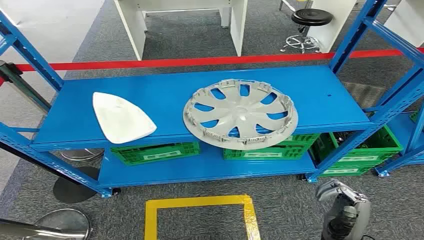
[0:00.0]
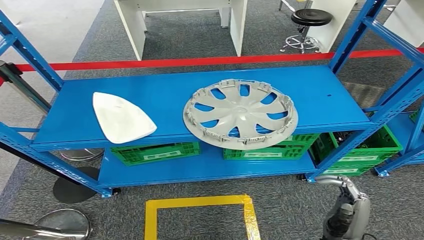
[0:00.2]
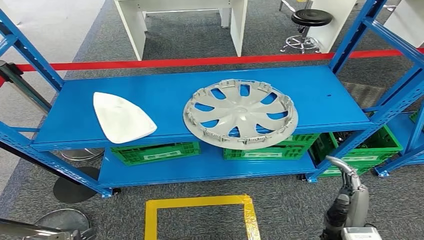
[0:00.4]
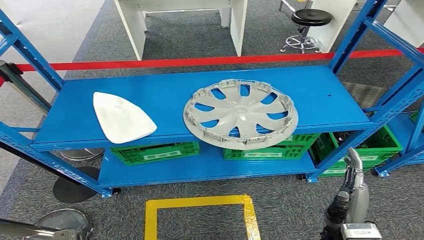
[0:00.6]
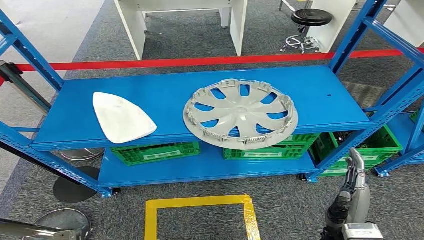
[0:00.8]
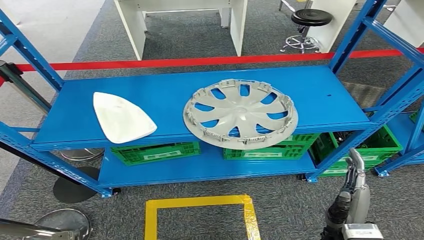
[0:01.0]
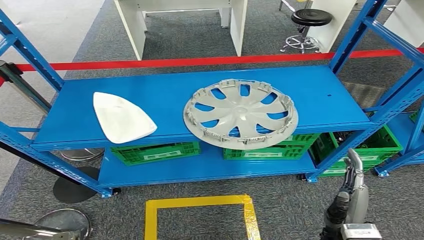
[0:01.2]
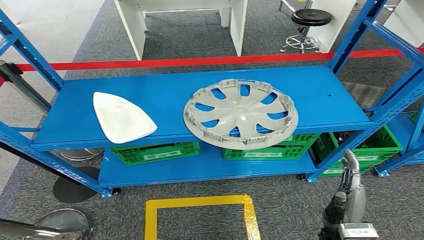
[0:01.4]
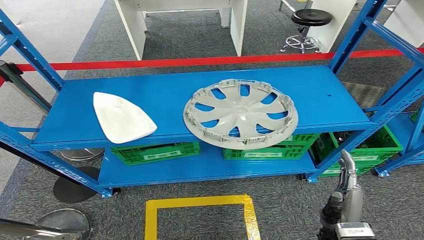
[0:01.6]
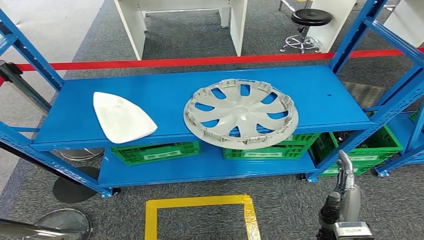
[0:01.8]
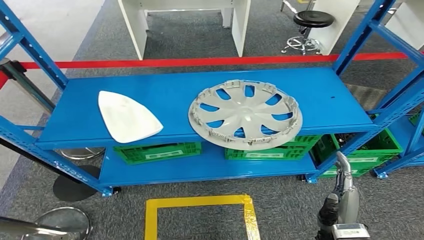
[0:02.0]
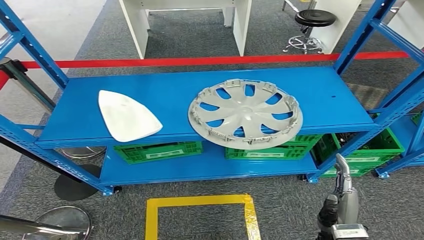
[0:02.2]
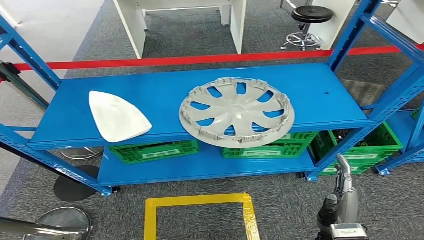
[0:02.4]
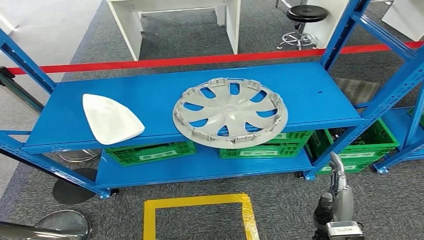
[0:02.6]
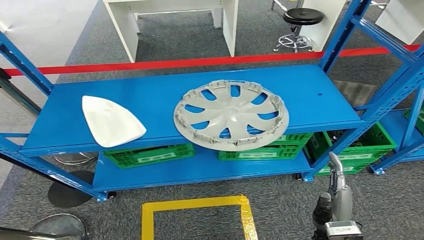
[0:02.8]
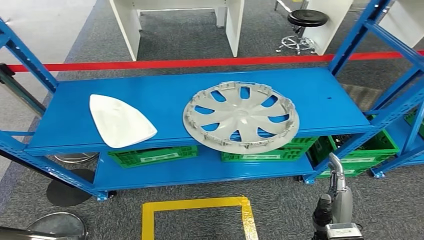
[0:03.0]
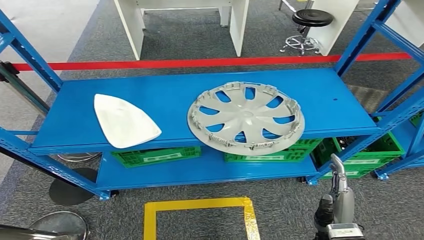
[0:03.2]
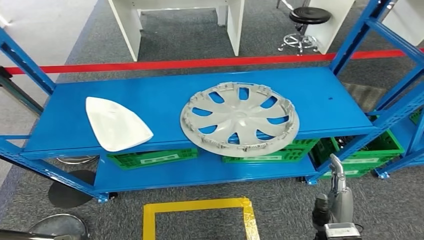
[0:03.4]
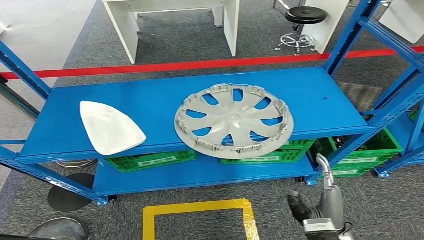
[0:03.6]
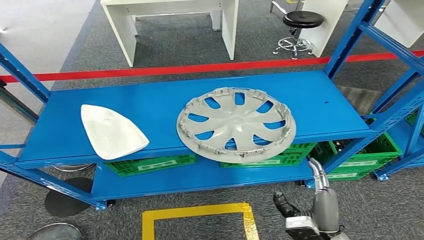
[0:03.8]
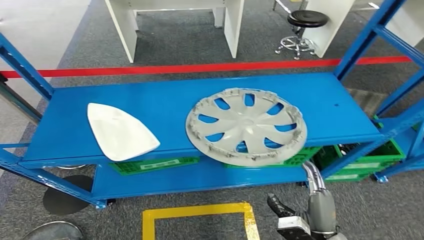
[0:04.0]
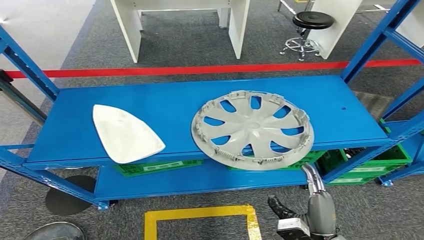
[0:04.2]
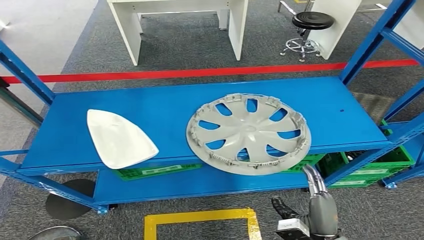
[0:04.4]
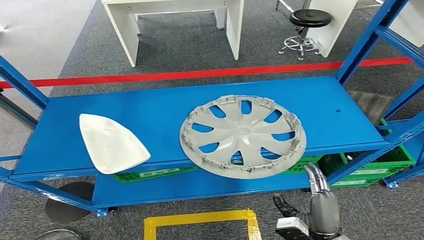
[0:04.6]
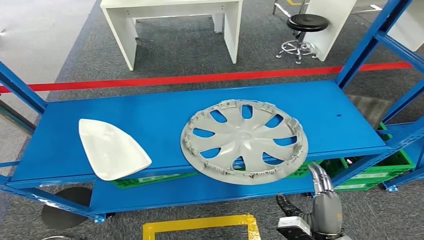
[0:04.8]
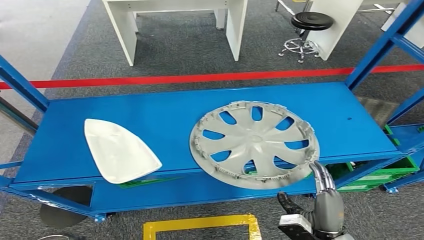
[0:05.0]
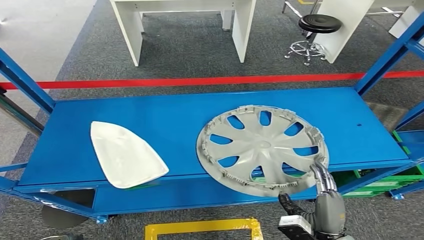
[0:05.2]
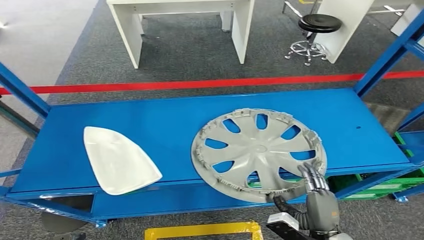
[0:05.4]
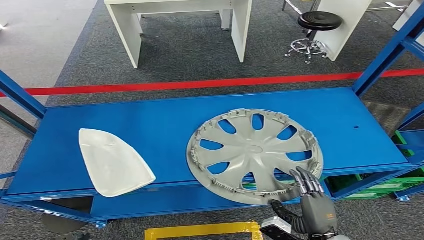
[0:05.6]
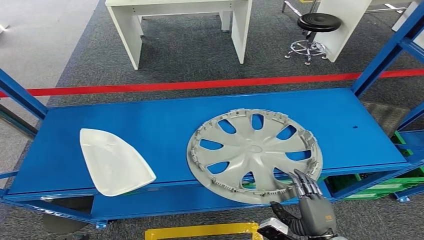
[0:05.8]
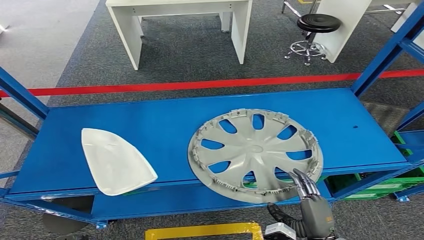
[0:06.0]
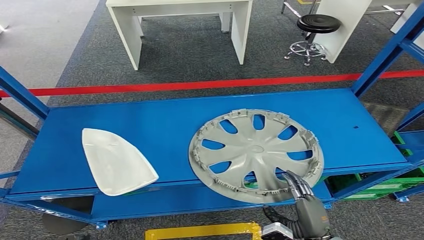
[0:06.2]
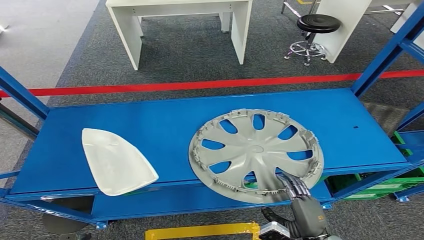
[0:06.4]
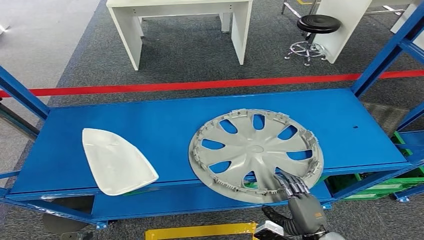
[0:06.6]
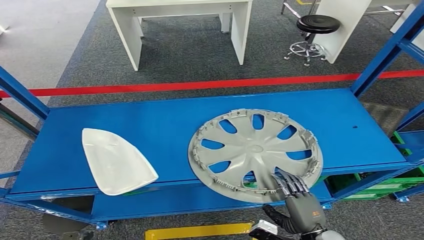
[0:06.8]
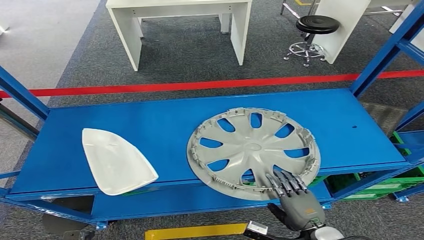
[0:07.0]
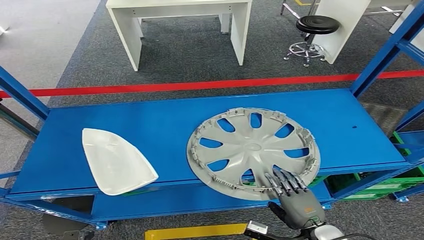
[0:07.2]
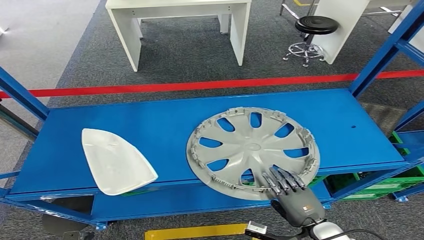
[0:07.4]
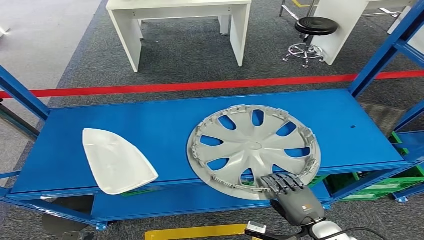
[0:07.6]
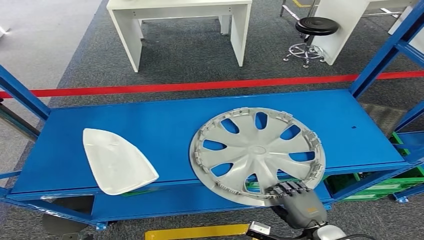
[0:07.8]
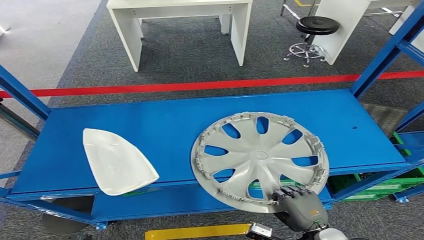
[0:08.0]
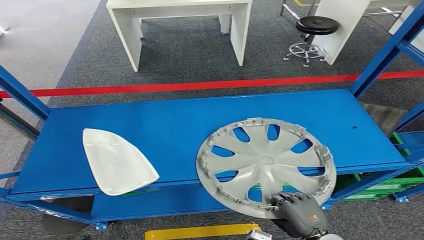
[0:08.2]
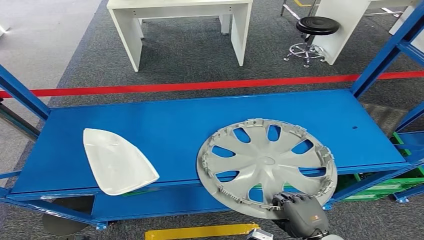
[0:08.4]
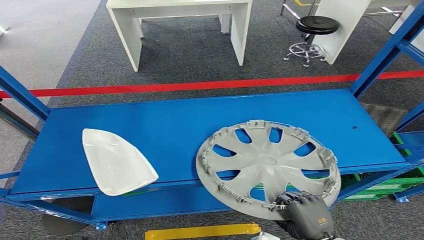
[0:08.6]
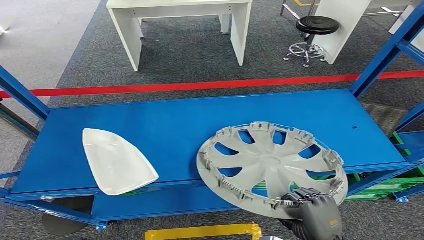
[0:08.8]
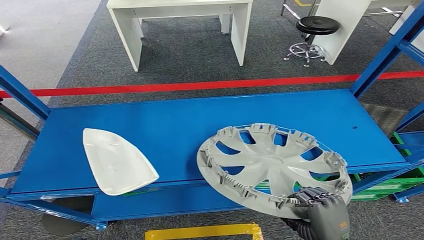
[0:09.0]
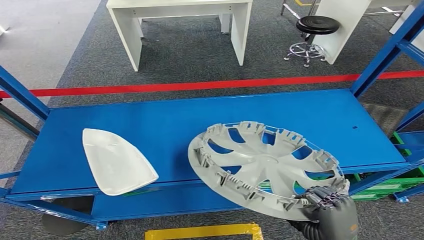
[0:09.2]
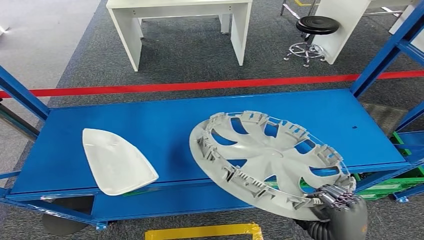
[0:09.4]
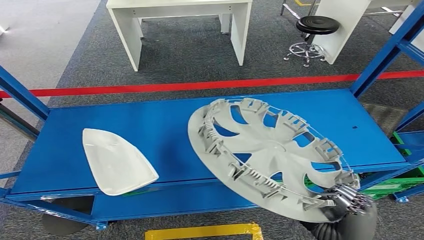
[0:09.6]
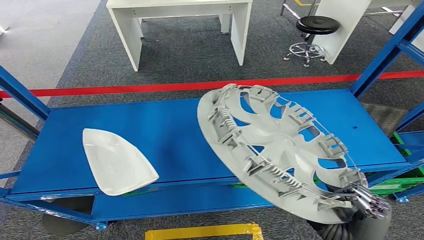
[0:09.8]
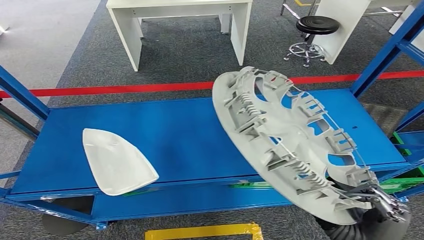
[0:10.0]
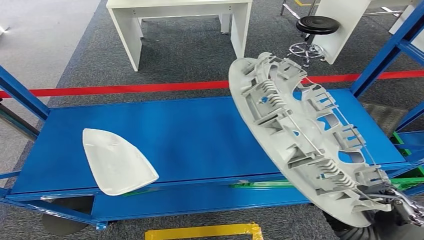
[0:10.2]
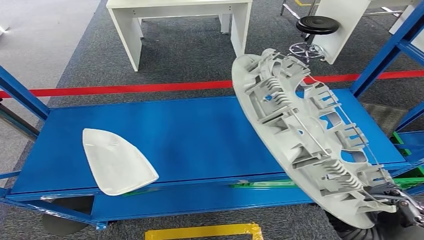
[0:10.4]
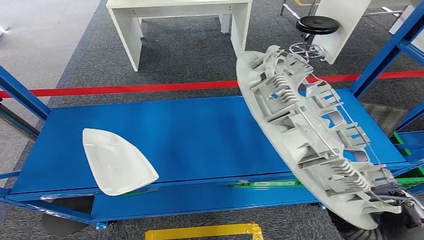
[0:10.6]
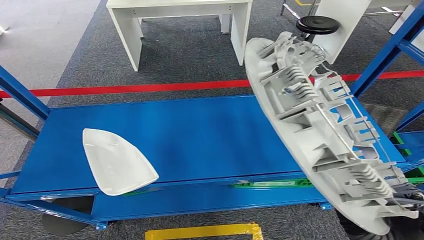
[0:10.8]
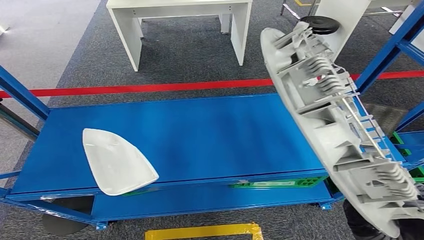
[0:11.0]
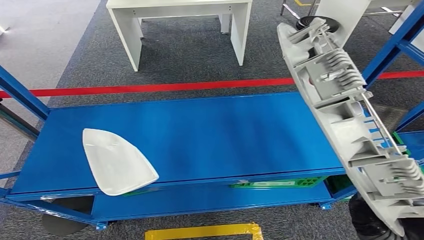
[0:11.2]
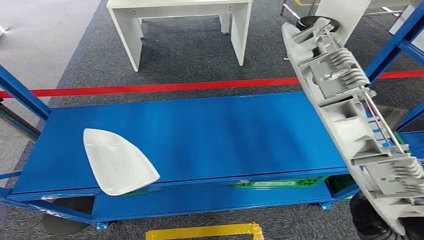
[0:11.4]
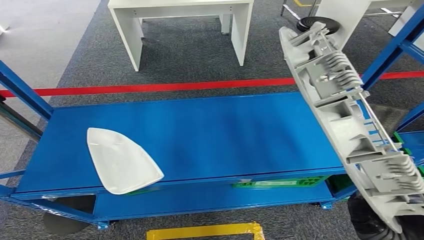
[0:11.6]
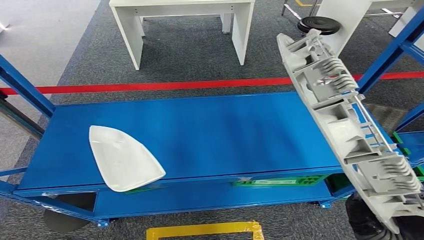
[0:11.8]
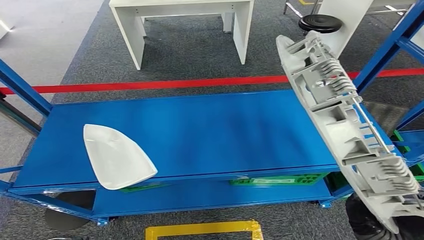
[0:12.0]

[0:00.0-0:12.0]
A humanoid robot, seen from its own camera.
Step, 0:00.0 to 0:09.8: Pick up the small parts from the shelf.
0:07.6 to 0:09.0: The right hand moves upward, some 5 cm.

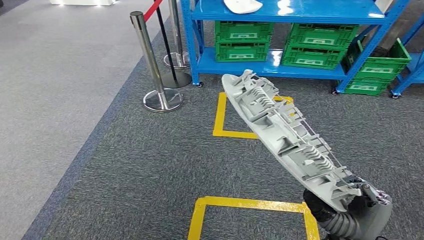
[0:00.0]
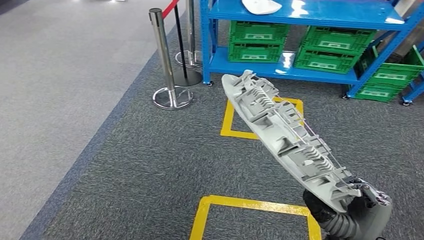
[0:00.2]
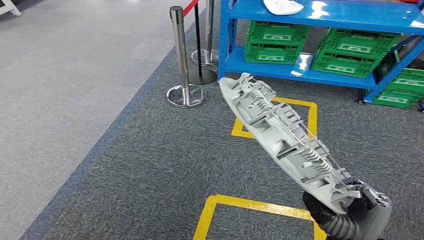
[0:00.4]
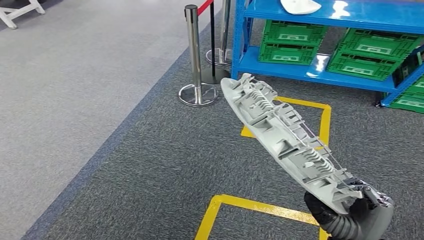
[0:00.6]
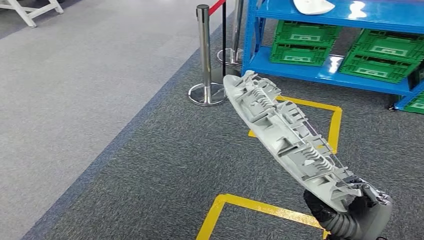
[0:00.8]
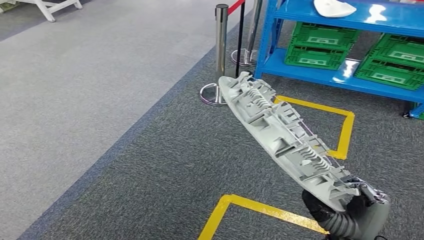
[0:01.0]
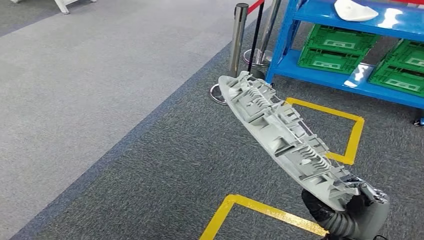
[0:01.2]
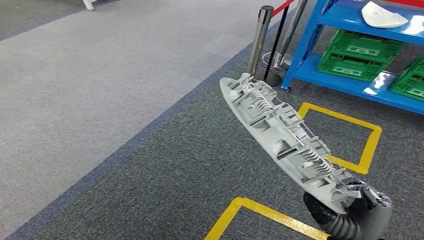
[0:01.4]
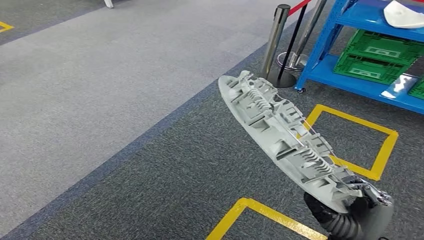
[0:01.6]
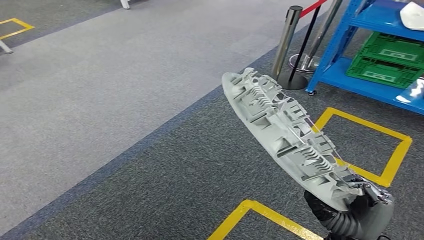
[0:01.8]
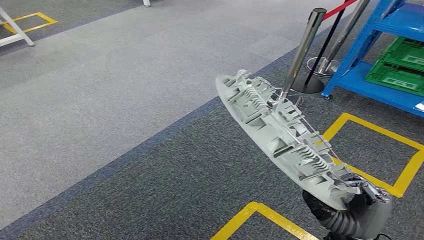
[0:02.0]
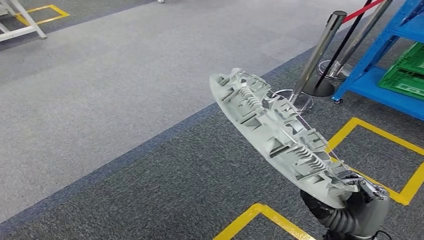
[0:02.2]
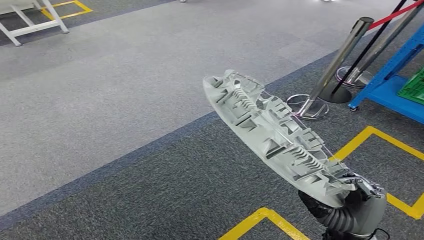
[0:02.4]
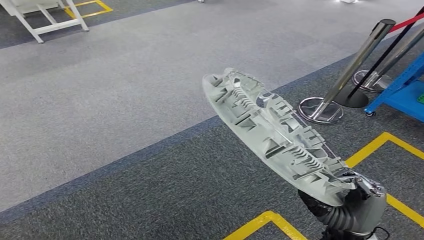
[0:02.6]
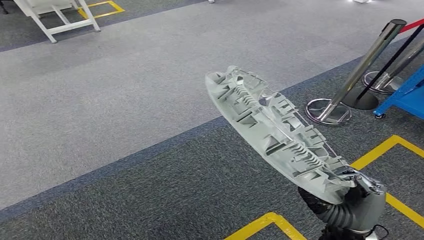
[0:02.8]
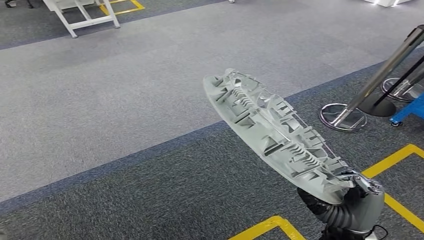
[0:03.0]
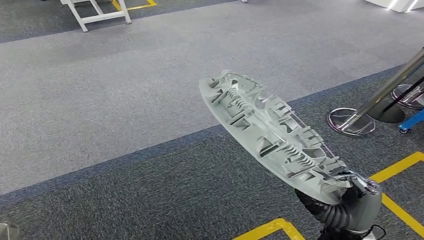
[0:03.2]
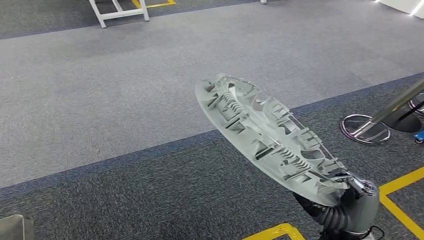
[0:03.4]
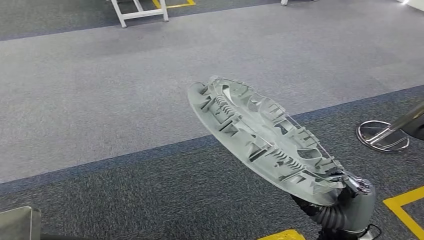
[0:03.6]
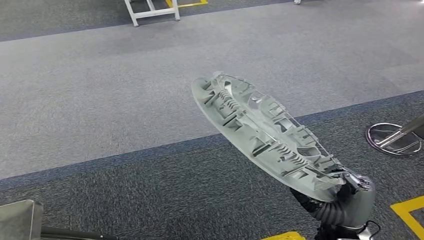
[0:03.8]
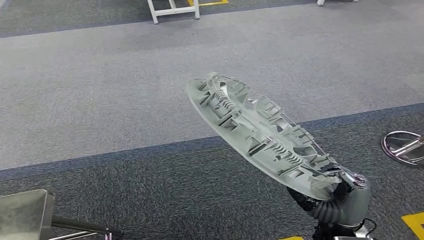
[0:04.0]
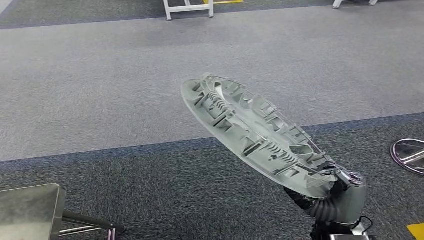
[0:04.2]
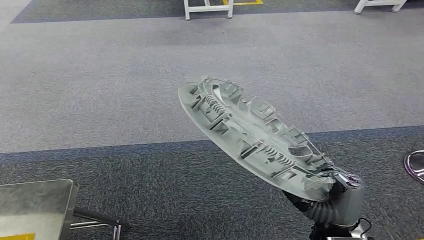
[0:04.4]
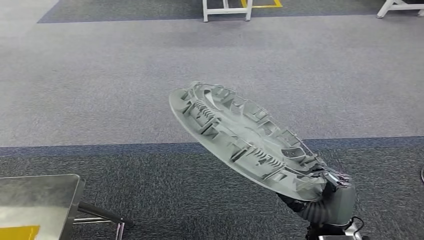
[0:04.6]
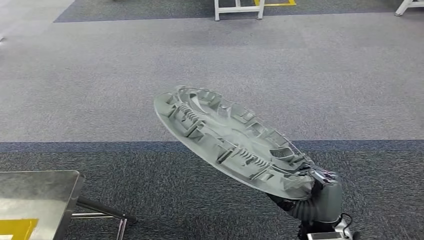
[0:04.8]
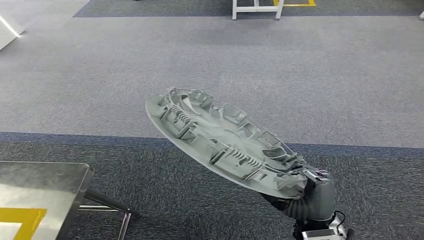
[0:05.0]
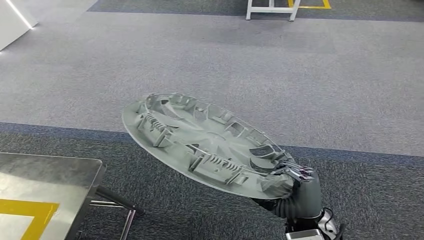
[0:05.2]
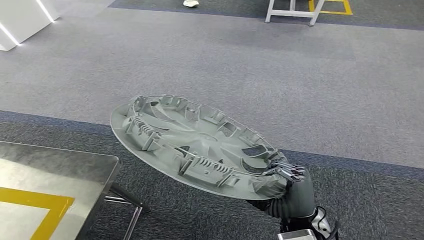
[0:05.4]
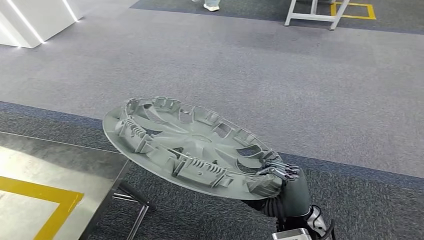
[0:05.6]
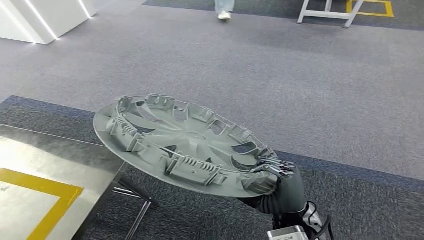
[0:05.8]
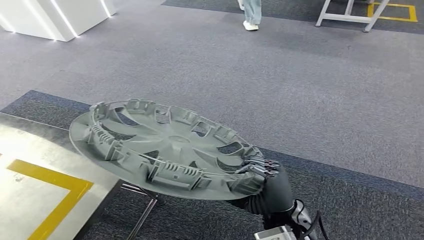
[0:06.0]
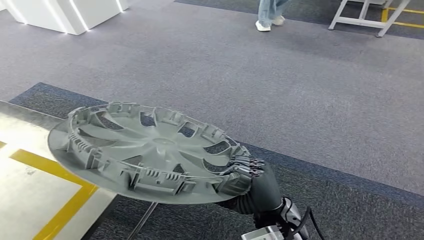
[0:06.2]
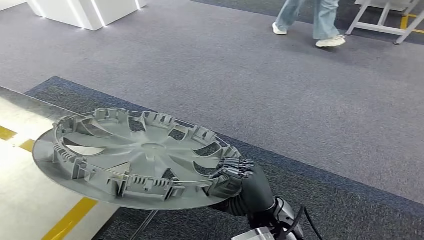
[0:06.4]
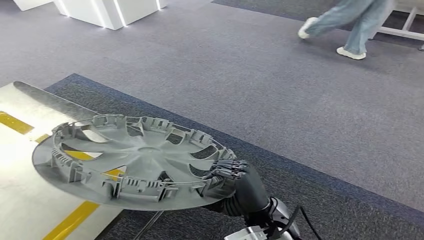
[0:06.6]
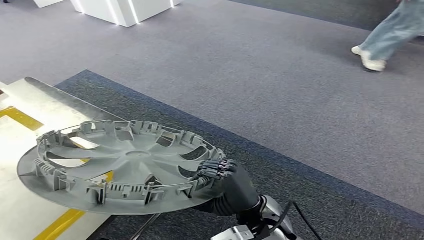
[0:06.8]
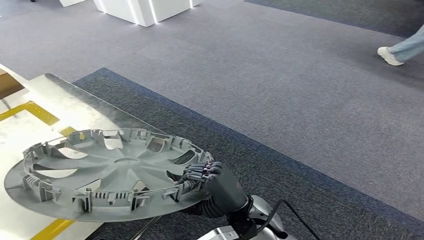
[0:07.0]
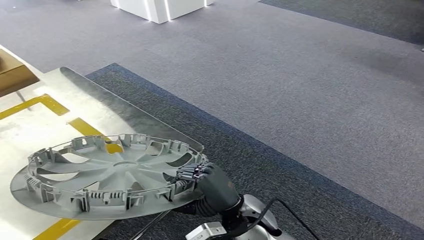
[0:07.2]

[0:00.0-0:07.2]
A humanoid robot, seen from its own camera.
Step, 0:00.0 to 0:07.0: Move the small parts to the workbench.
